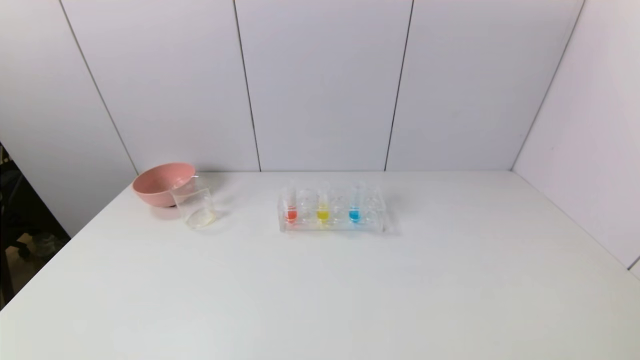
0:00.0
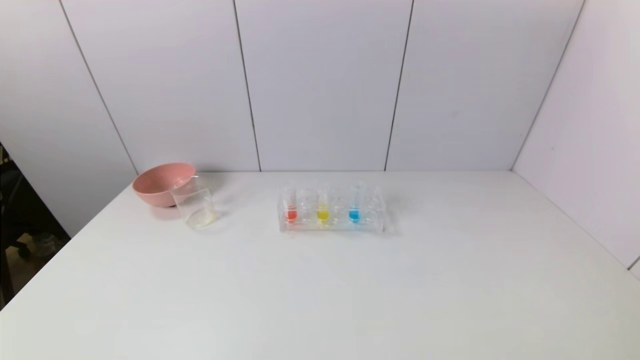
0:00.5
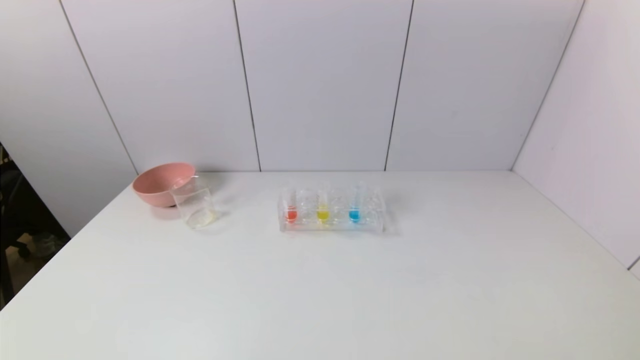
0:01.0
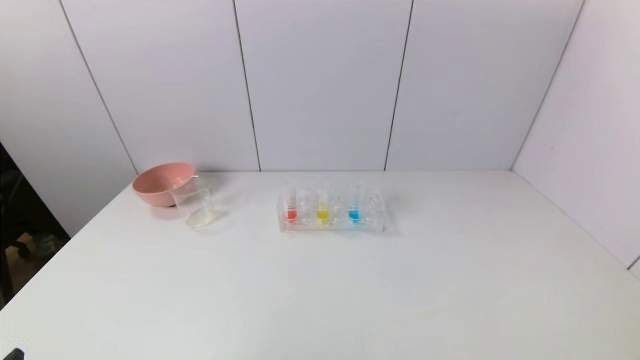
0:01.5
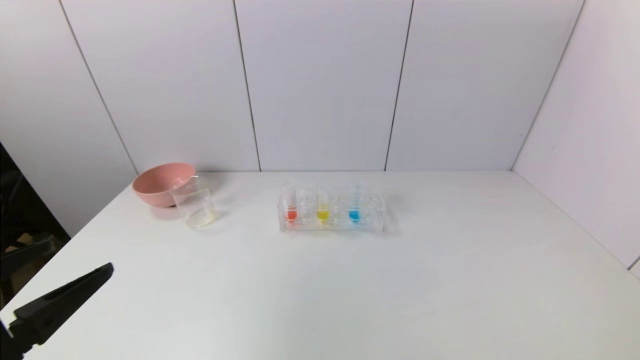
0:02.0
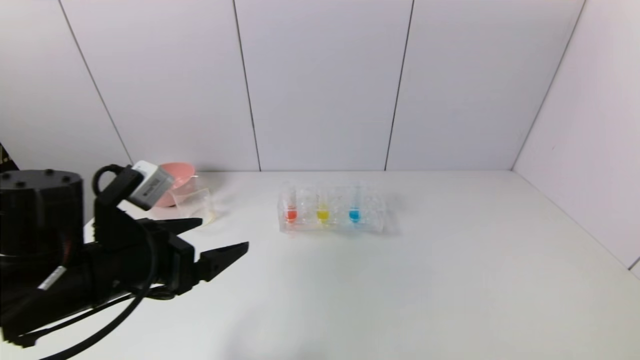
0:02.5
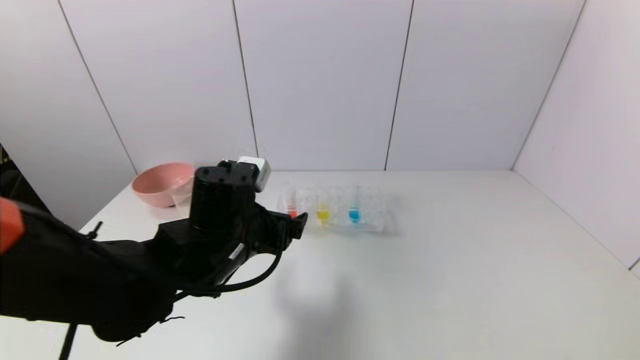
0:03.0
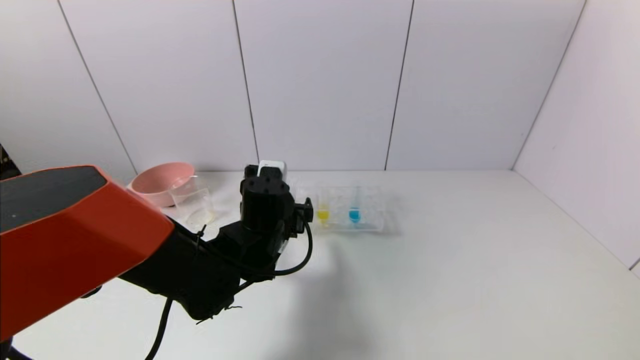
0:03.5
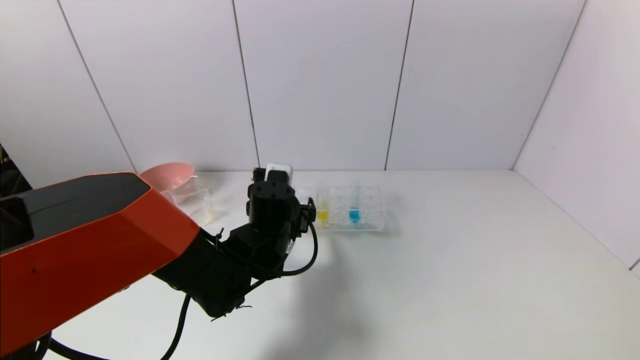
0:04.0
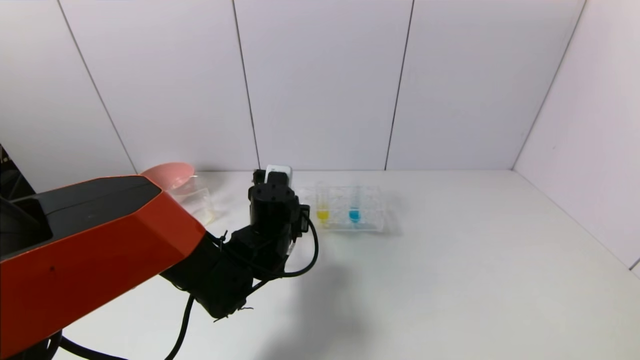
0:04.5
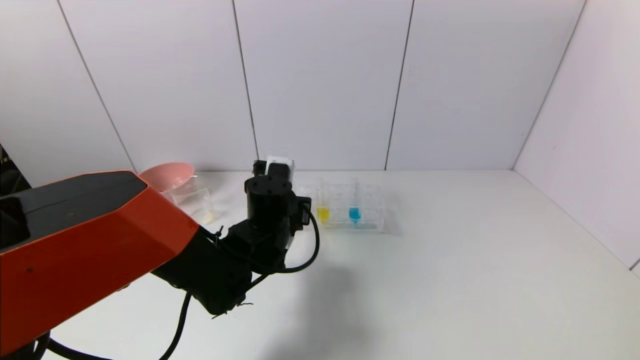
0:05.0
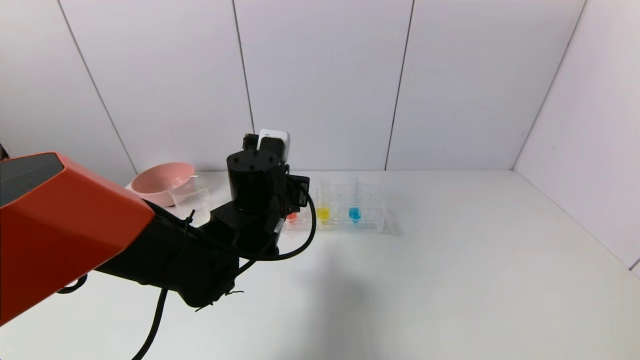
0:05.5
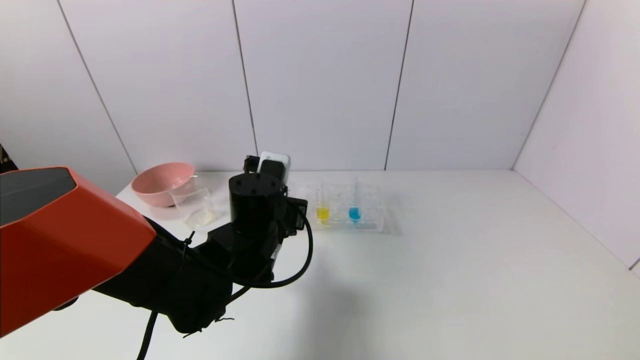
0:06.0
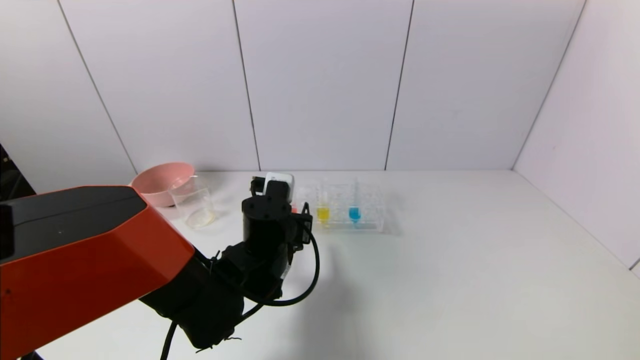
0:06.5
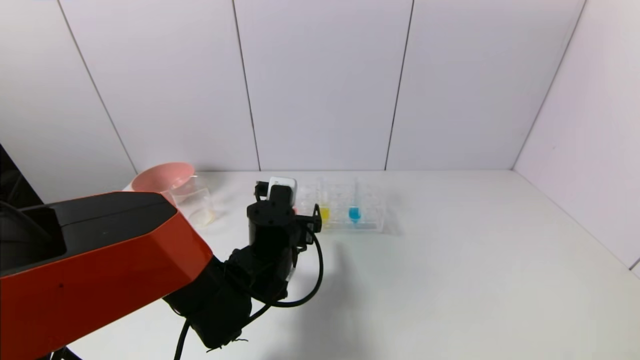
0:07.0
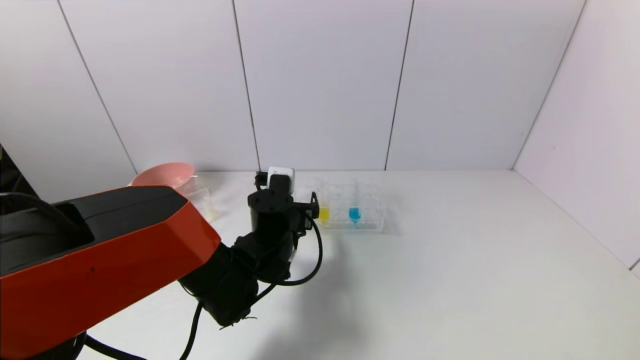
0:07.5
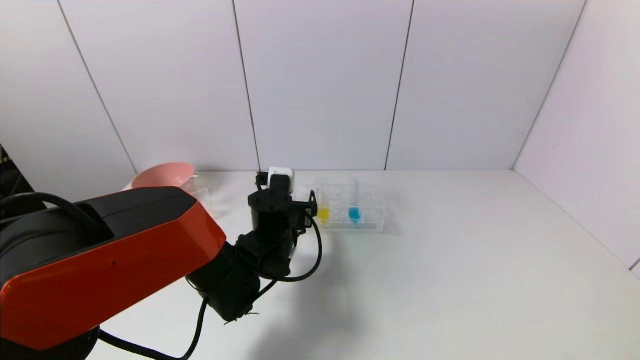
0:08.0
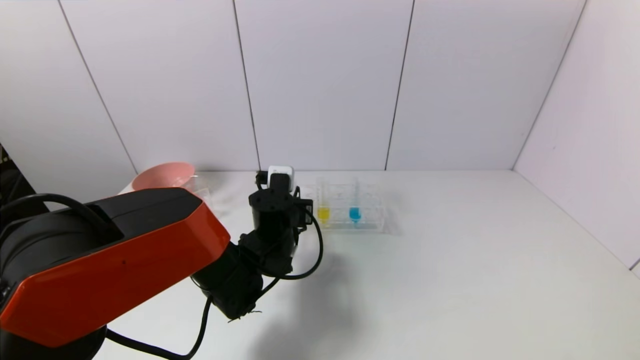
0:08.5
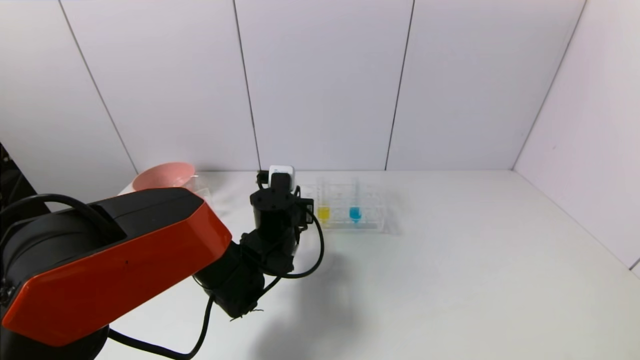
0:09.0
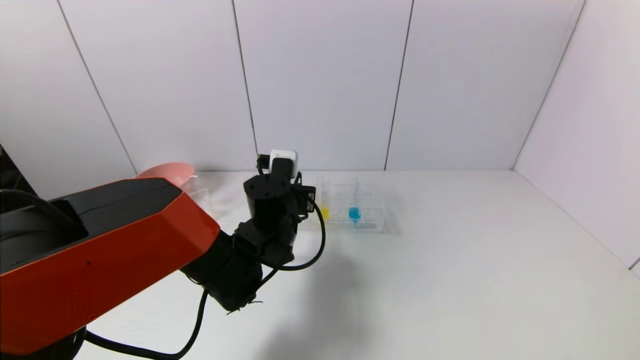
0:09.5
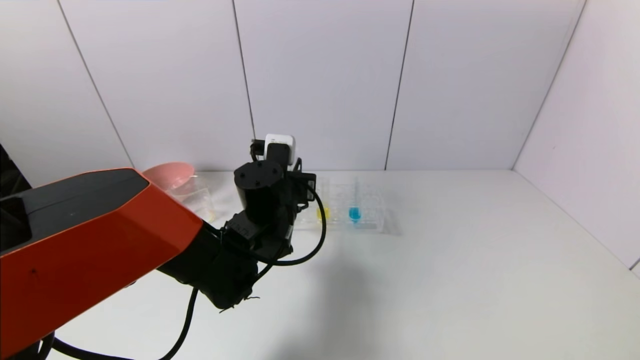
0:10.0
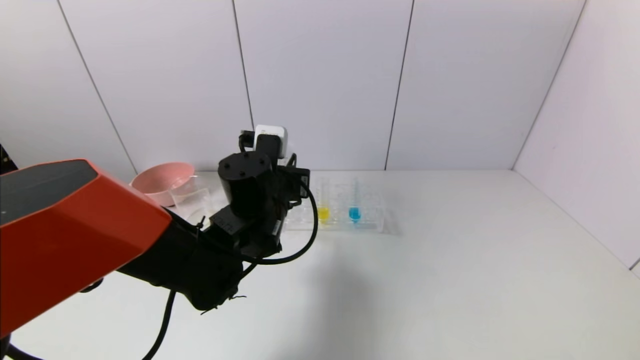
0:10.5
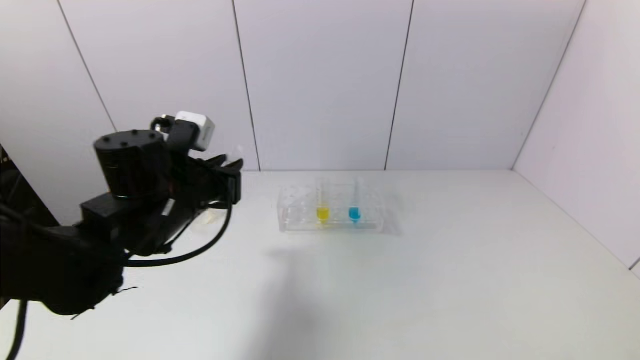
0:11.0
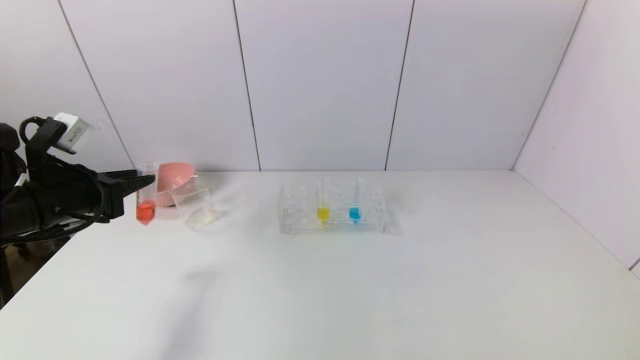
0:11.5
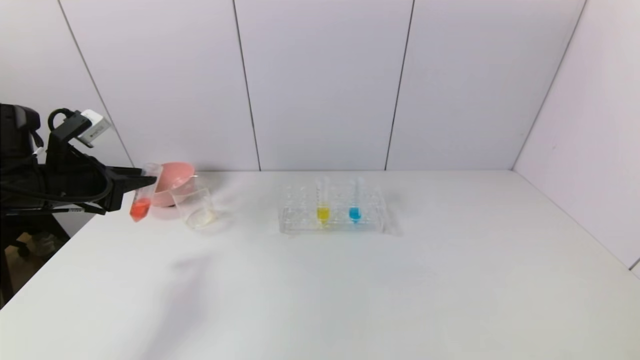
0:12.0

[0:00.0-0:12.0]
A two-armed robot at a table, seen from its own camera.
Task of the whole recording: pick up the test tube with yellow pigment and the test tube with red pigment by grippers and pour them into the beaker.
Step, 0:00.0 to 0:08.5: Grasp the red reagent with the left gripper.
0:00.0 to 0:02.0: The left gripper is displaced upward and forward by roughly 15 cm.
0:02.0 to 0:04.0: The left gripper moves forward, to the right and downward, approximately 35 cm.
0:04.0 to 0:06.0: The left gripper closes.
0:06.0 to 0:08.0: The left gripper changes place by some 5 cm, and opens up.
0:08.0 to 0:10.0: The left gripper is displaced upward by some 5 cm, and closes up.
0:10.0 to 0:12.0: The left gripper heads to the left, covering about 30 cm.

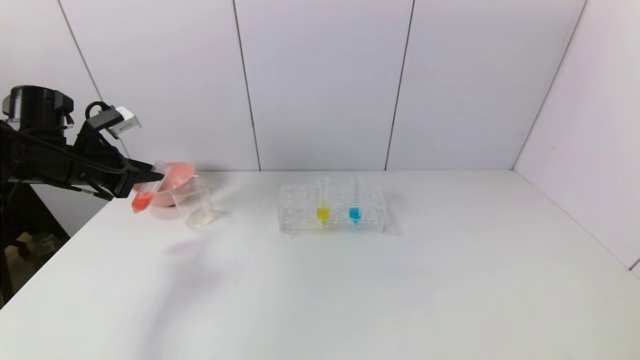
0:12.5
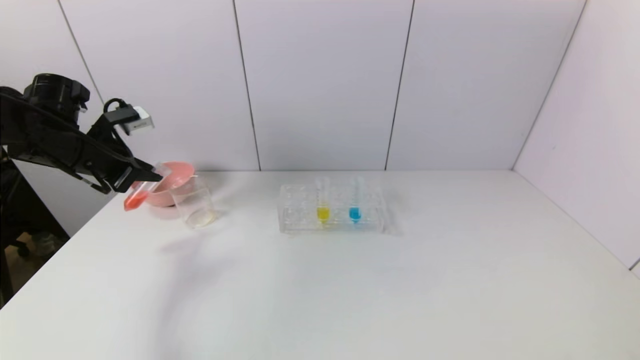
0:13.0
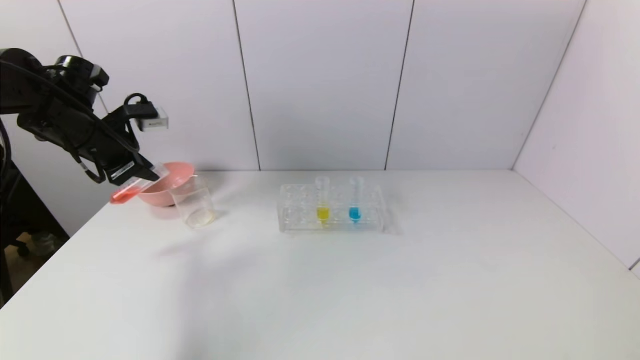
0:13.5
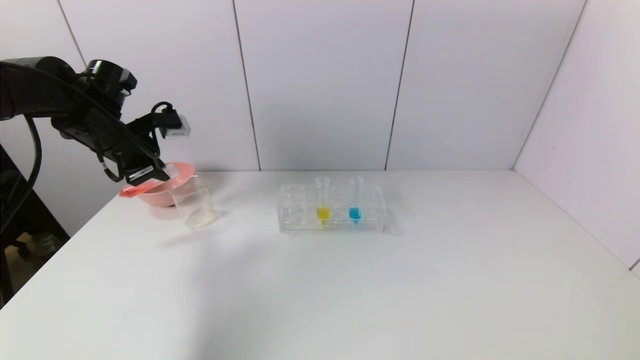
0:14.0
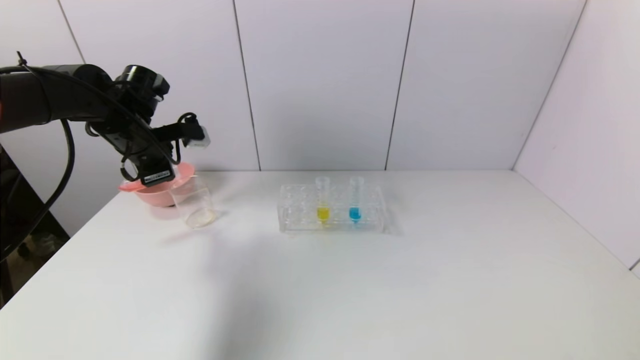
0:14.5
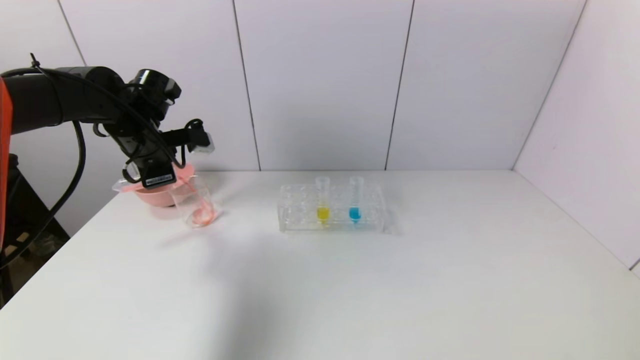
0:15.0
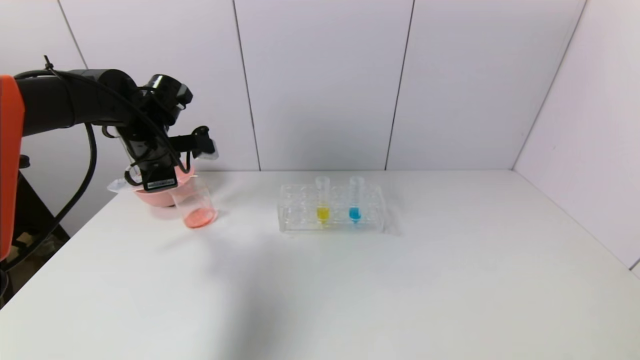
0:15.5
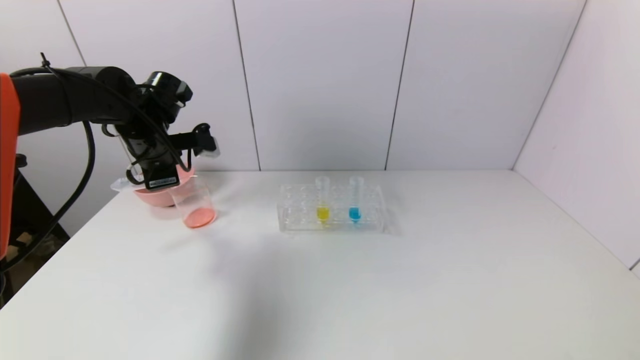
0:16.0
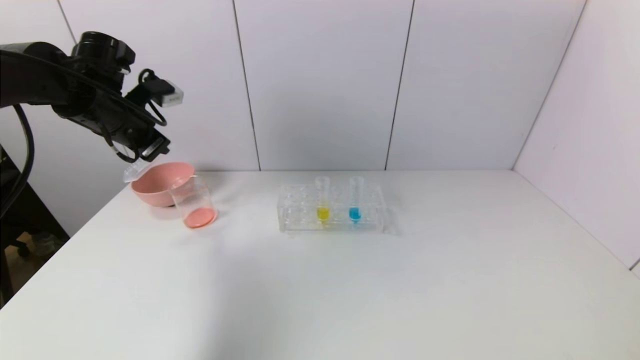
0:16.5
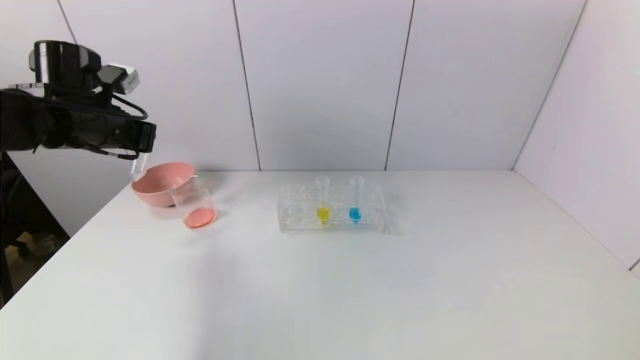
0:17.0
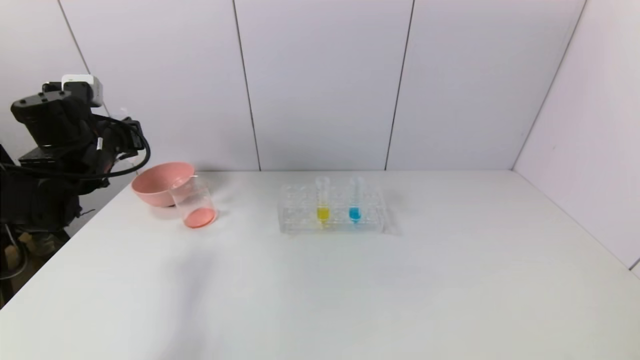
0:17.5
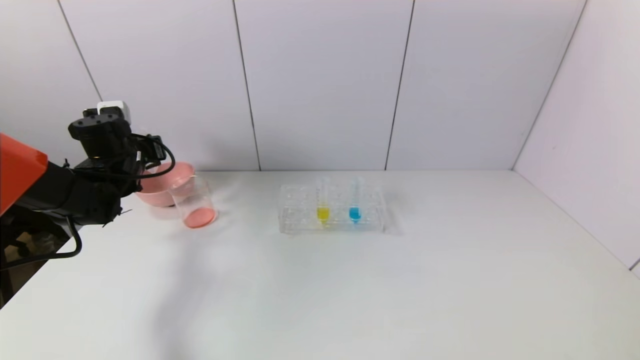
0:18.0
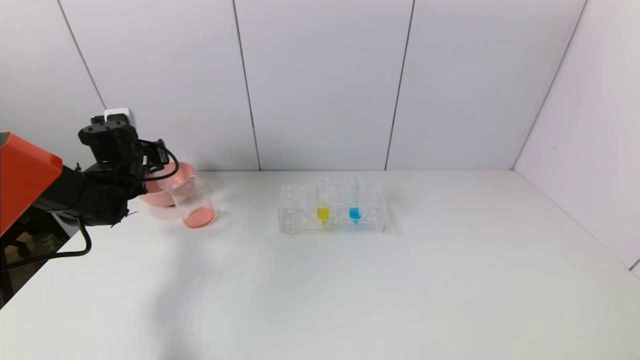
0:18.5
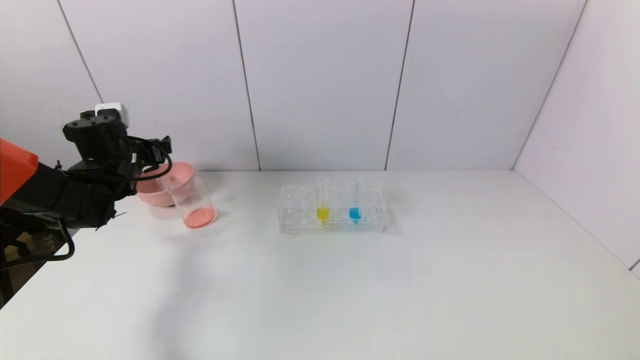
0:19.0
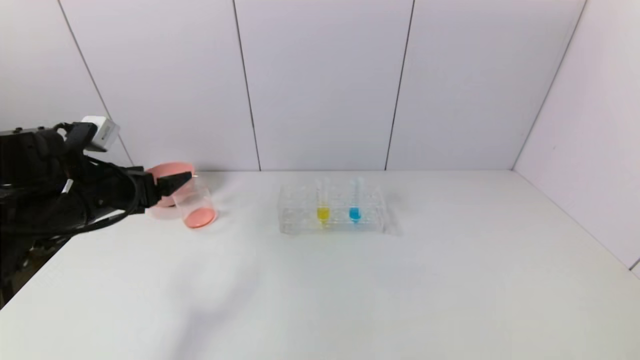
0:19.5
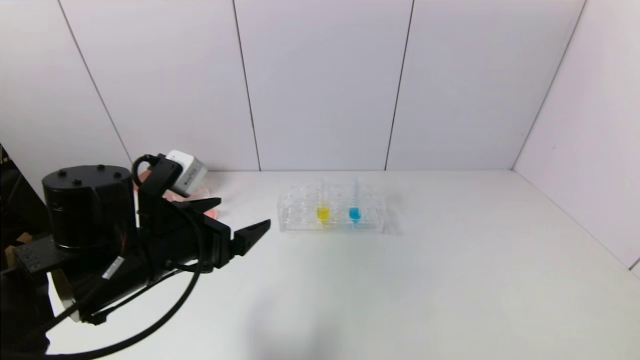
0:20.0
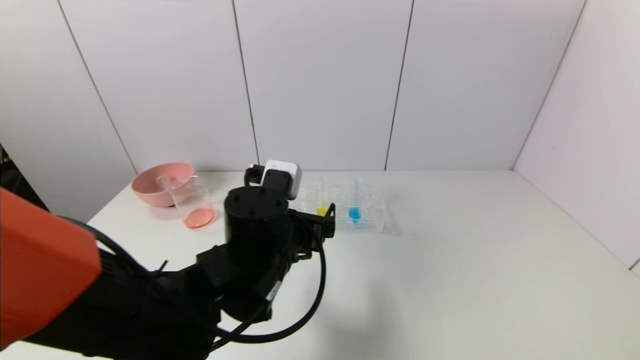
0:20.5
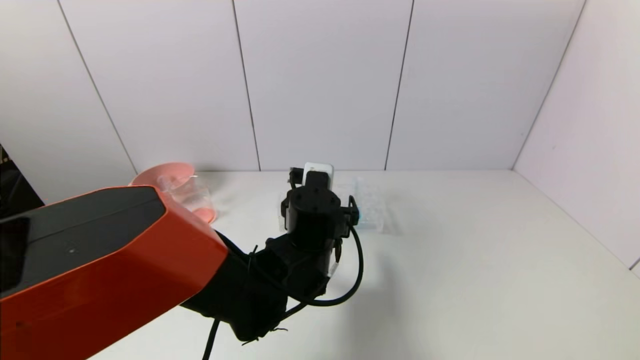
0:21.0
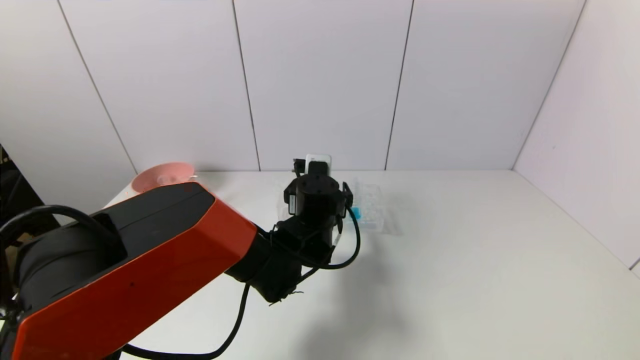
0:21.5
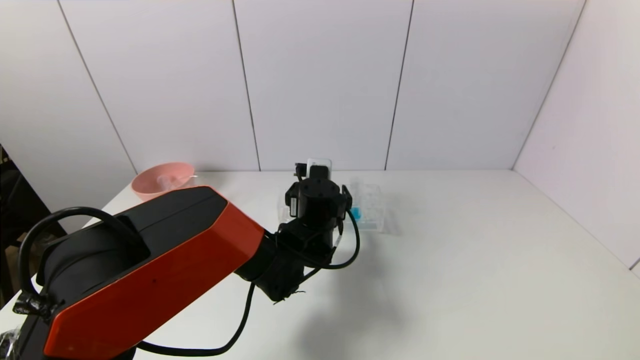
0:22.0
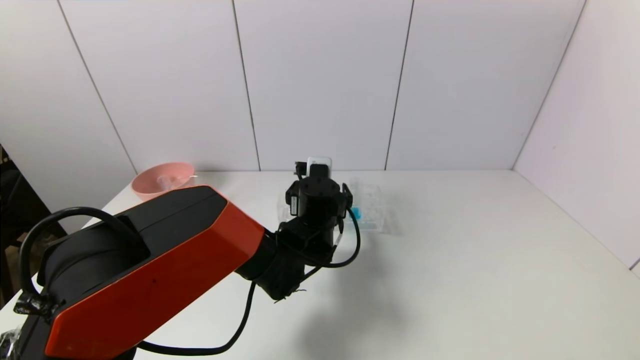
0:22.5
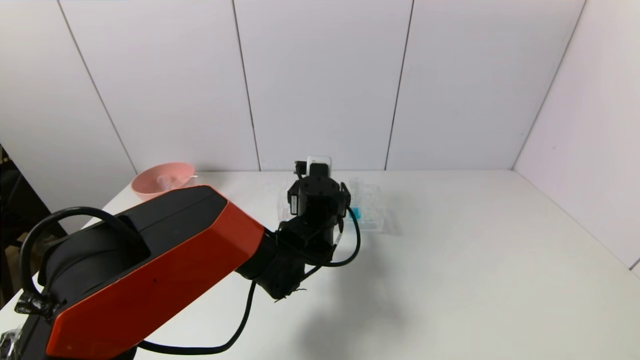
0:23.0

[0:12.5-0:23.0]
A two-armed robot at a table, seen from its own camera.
Task of the whole recording: pick up the test tube with yellow pigment and the test tube with red pigment by grippers and pour them into the beaker.
Step, 0:12.5 to 0:15.5: Pour the red reagent into the graduated cylinder with the left gripper.
Step, 0:16.0 to 0:18.5: Place the test tube into the pink bowl with the left gripper.
0:12.5 to 0:14.5: The left gripper travels to the right and forward by approximately 10 cm.
0:14.5 to 0:16.5: The left gripper ends up roughly 5 cm from where it was.
0:16.5 to 0:19.0: The left gripper goes some 10 cm downward, and opens.
0:19.0 to 0:21.0: The left gripper heads to the right, covering about 35 cm.
0:21.0 to 0:23.0: The left gripper heads forward, covering approximately 5 cm.
